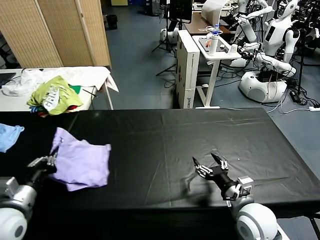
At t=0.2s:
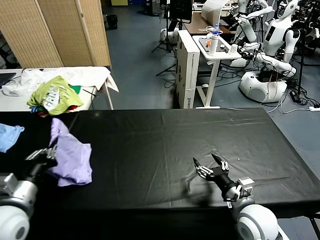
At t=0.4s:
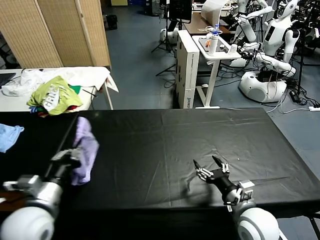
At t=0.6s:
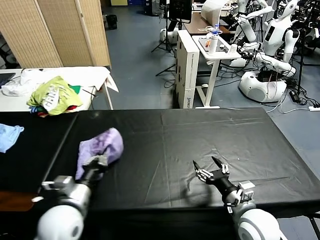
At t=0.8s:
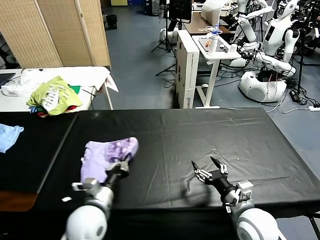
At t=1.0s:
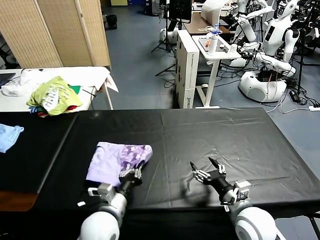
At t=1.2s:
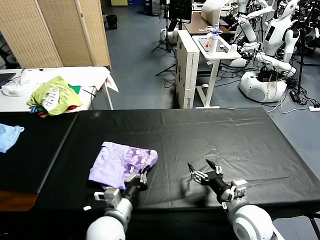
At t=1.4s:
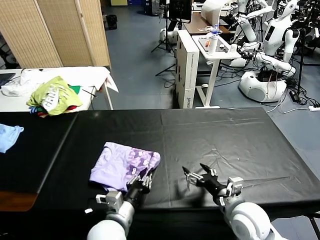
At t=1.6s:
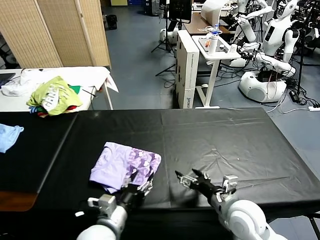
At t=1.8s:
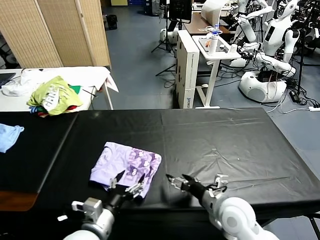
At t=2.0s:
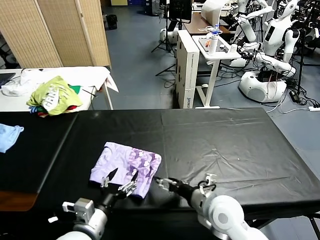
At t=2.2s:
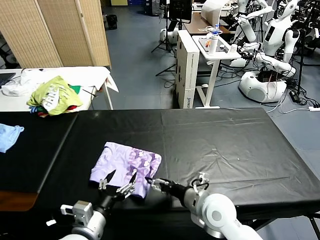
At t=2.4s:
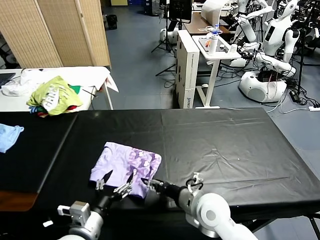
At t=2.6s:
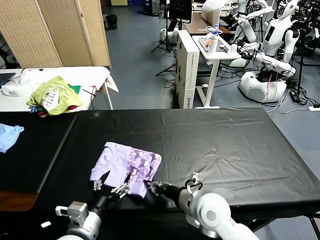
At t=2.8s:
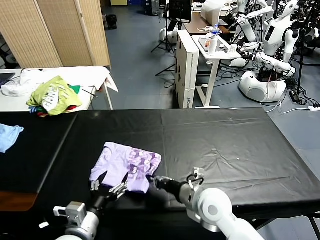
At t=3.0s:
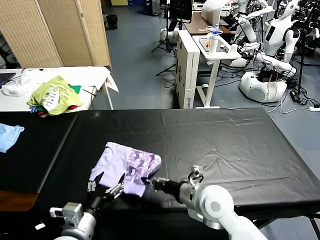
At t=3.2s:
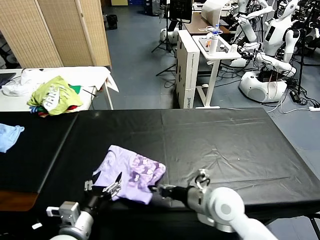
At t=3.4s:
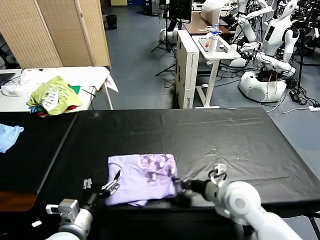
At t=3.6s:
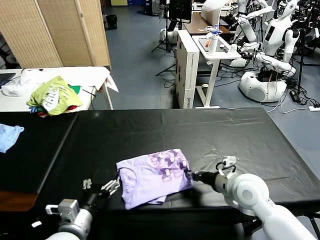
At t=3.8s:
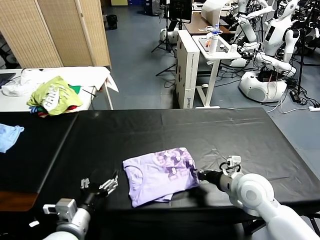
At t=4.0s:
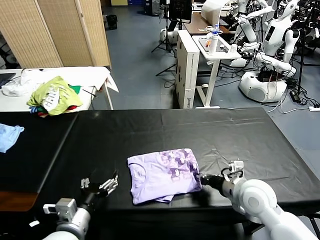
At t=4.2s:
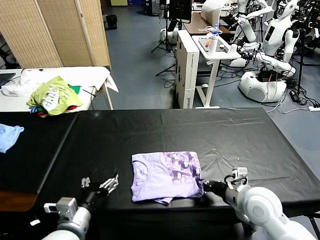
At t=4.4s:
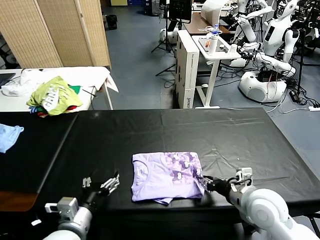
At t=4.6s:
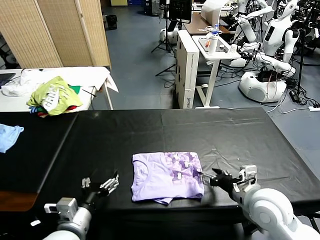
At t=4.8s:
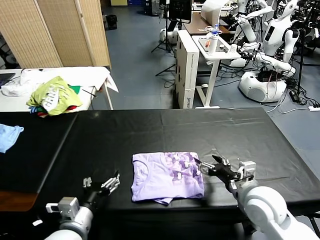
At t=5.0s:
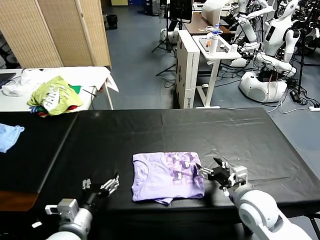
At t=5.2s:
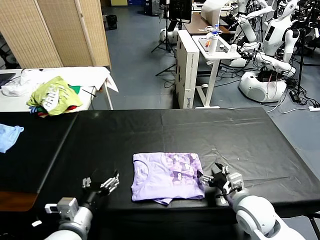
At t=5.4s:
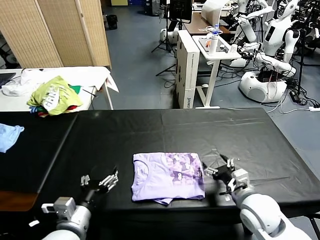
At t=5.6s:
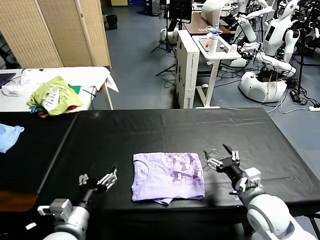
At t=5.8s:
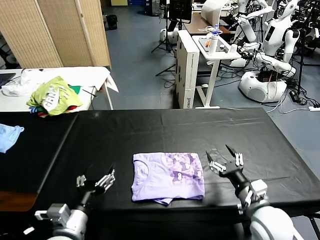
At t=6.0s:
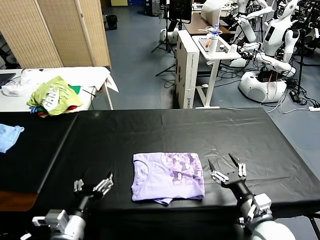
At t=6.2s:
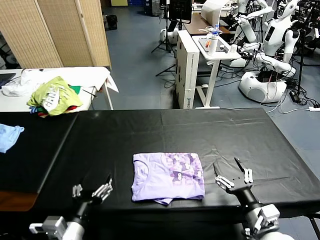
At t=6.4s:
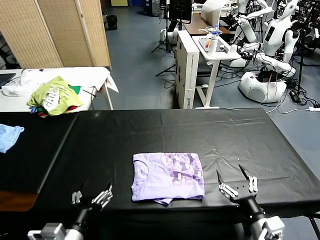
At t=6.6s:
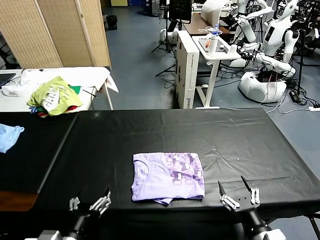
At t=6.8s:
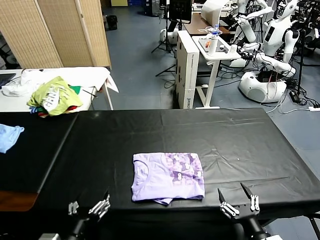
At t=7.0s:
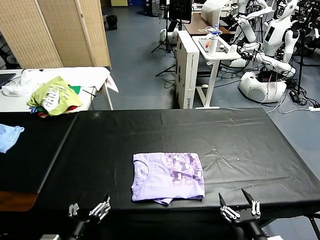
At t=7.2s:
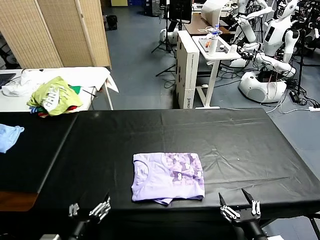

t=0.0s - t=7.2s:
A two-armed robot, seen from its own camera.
Task of the whole recording: fold and organize the clothes.
Step, t=1.8s - t=5.6s: Drag the clothes to the center of the table.
t=0.0s - t=1.4s: The left gripper shifts some 20 cm to the right.
t=1.4s - t=2.8s: The left gripper travels to the left and backward by some 10 cm, and opens, while the right gripper travels to the left by roughly 10 cm, and closes up.
t=2.8s - t=4.4s: The right gripper heads to the right, covering some 10 cm.
t=4.4s - t=5.8s: The right gripper opens.
t=5.8s - t=7.2s: The right gripper moves backward, some 15 cm. The left gripper shifts roughly 5 cm backward.
